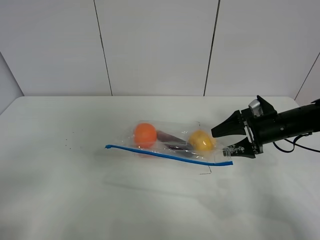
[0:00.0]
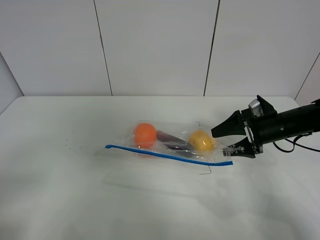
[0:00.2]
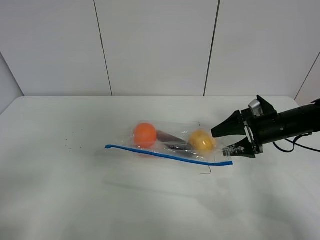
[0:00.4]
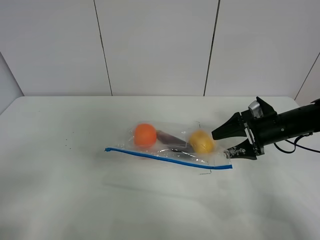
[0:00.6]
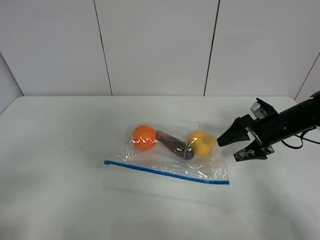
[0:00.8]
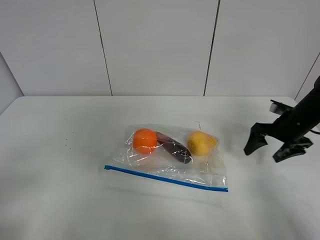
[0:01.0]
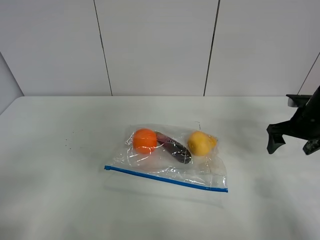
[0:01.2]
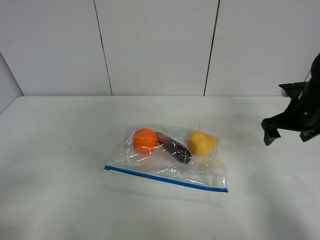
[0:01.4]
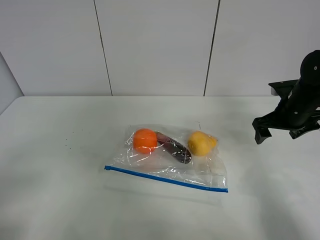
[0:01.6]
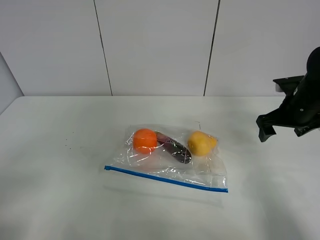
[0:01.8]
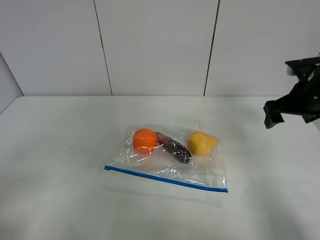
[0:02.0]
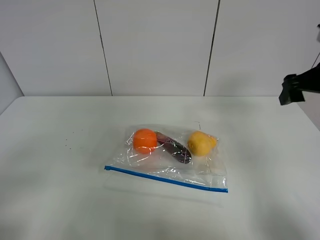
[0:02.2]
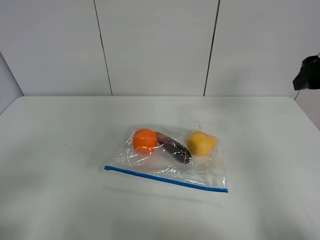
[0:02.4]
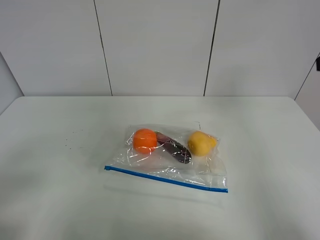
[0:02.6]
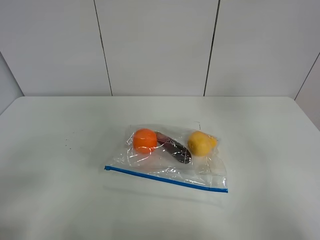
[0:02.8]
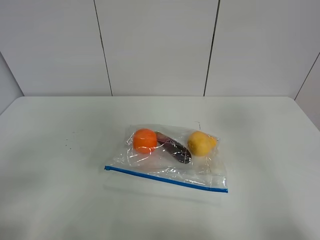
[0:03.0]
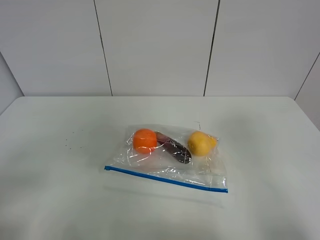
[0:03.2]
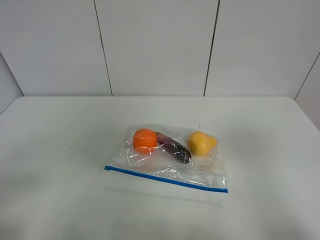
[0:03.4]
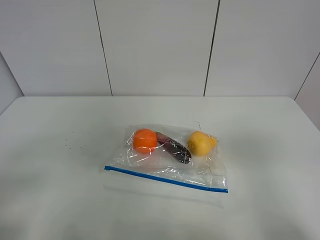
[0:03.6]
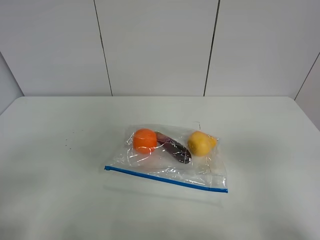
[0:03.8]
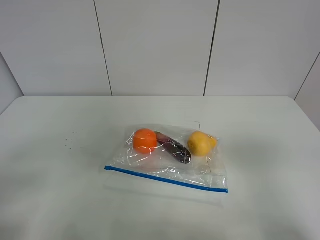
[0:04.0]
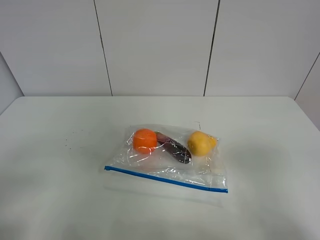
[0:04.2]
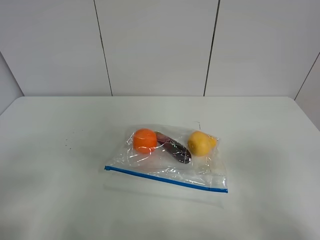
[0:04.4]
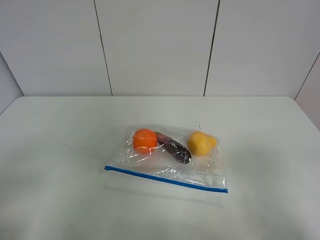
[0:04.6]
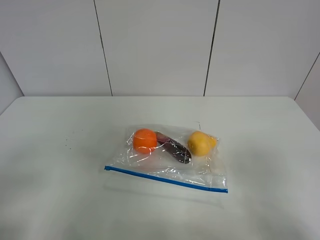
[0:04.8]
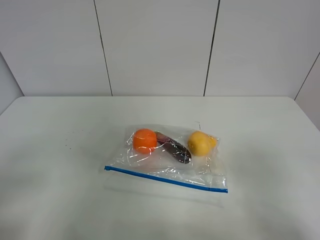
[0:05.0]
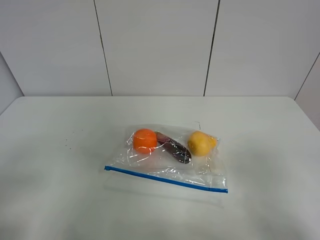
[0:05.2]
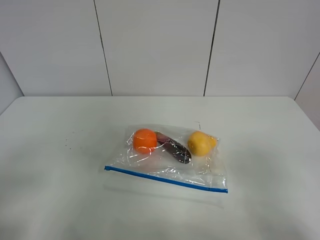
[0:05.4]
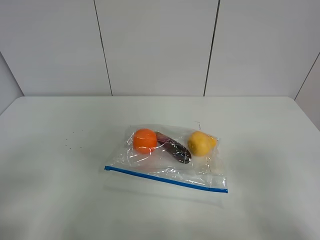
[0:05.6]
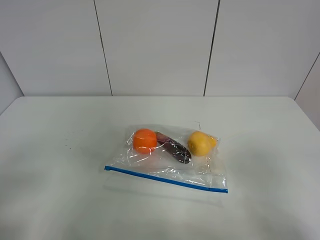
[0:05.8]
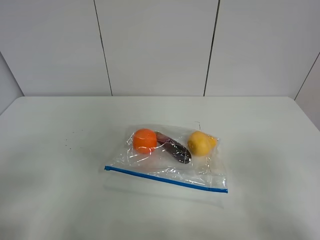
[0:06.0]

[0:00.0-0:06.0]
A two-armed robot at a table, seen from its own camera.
0.0 to 1.6 s: The right gripper ends up roughly 5 cm from where it was.
1.6 to 3.0 s: The right gripper goes roughly 30 cm backward and upward.
3.0 to 4.4 s: The right gripper goes some 10 cm downward and backward.
4.4 to 6.0 s: Both grippers stay about where they are.

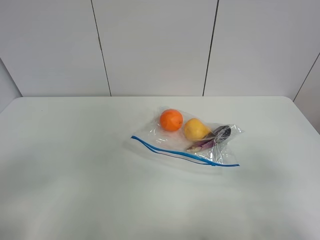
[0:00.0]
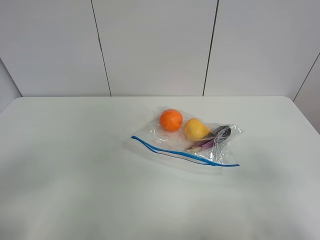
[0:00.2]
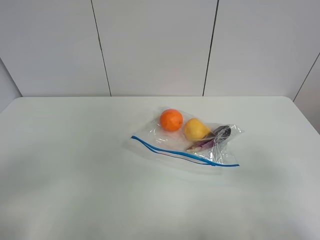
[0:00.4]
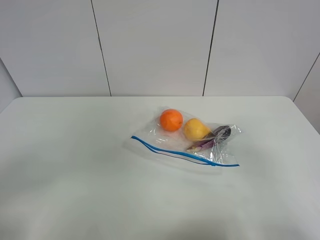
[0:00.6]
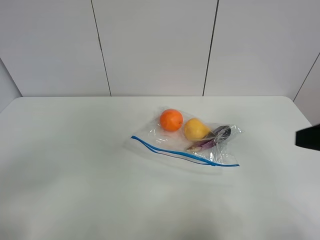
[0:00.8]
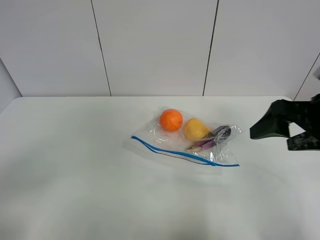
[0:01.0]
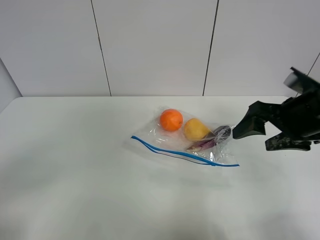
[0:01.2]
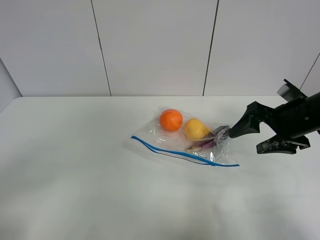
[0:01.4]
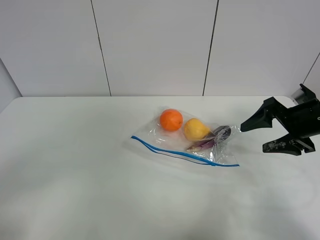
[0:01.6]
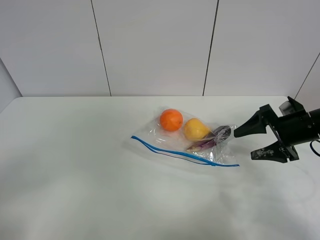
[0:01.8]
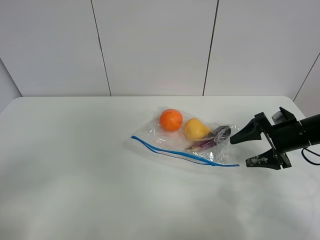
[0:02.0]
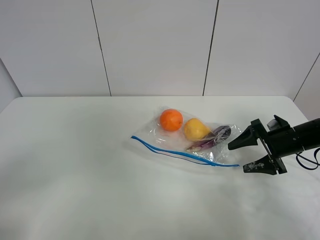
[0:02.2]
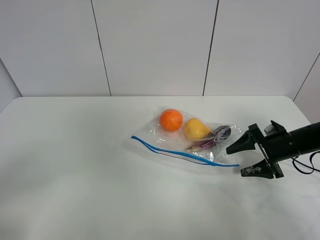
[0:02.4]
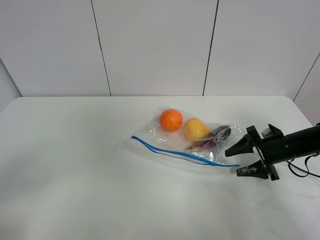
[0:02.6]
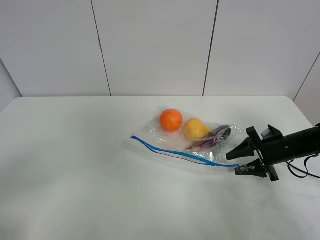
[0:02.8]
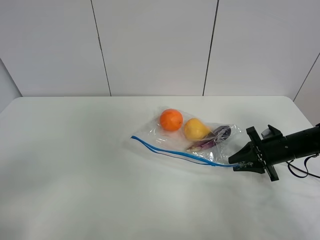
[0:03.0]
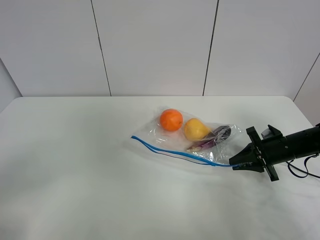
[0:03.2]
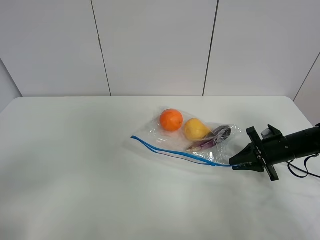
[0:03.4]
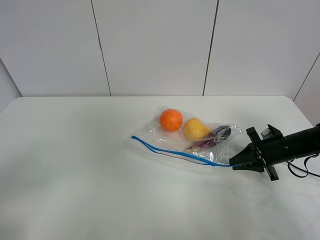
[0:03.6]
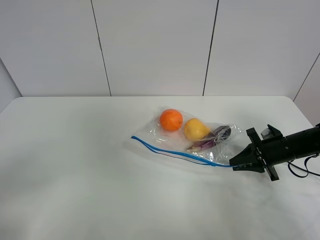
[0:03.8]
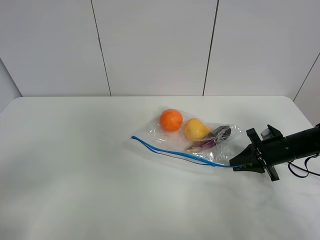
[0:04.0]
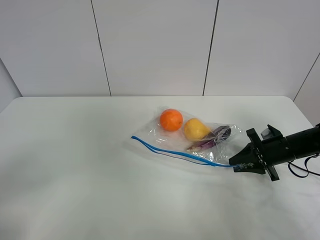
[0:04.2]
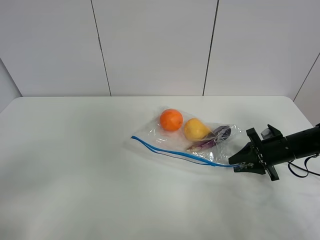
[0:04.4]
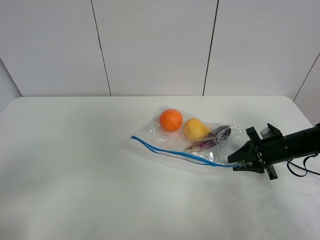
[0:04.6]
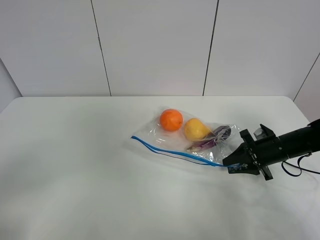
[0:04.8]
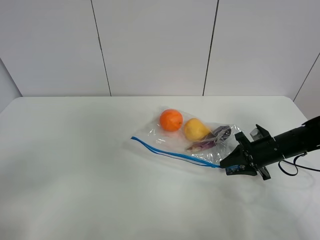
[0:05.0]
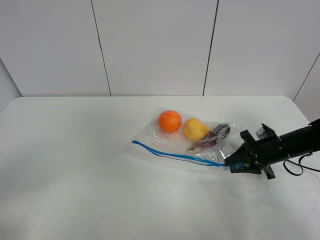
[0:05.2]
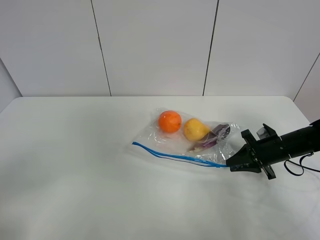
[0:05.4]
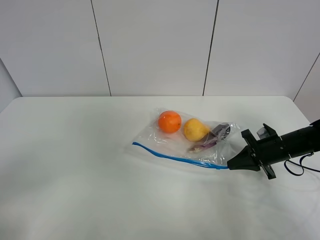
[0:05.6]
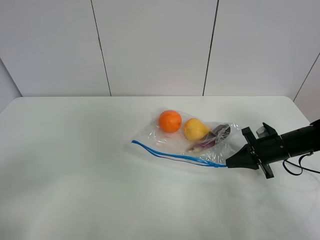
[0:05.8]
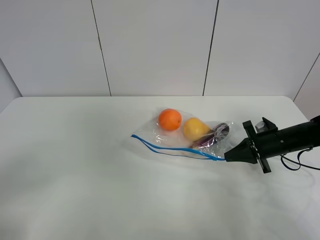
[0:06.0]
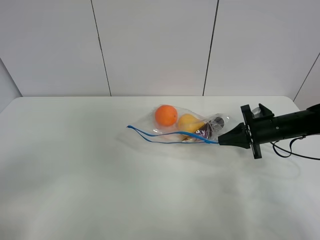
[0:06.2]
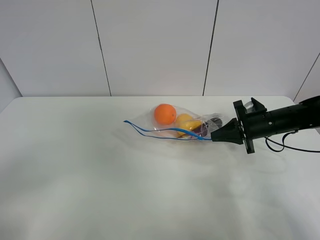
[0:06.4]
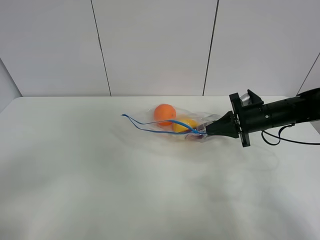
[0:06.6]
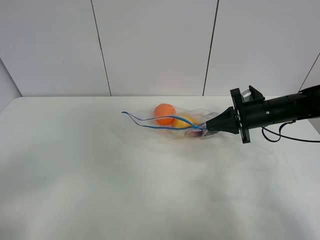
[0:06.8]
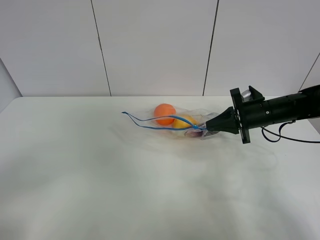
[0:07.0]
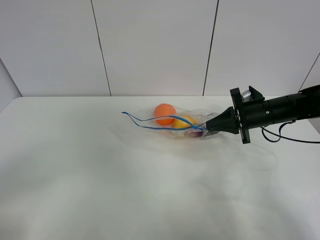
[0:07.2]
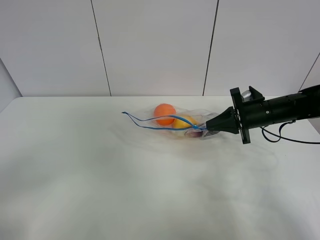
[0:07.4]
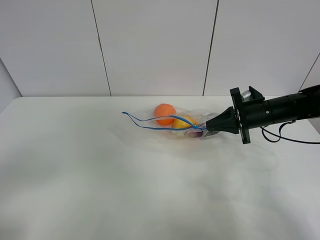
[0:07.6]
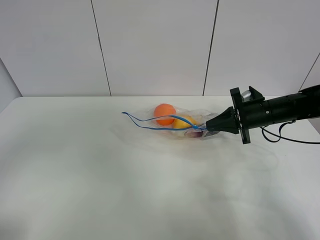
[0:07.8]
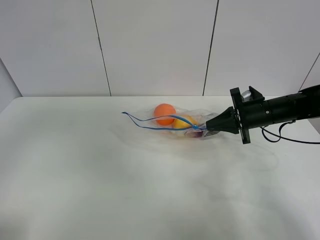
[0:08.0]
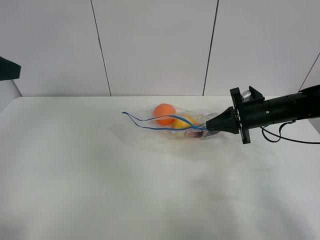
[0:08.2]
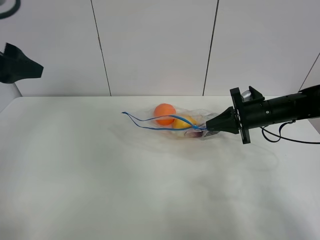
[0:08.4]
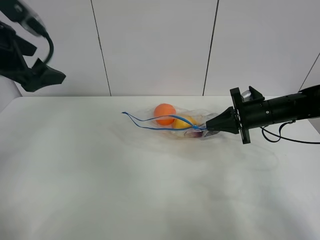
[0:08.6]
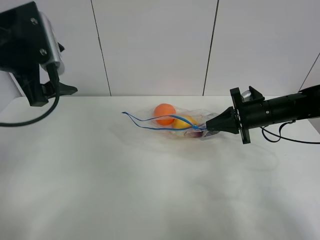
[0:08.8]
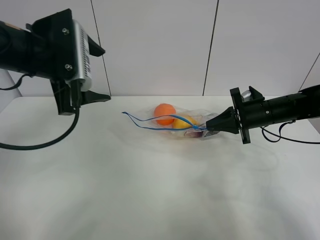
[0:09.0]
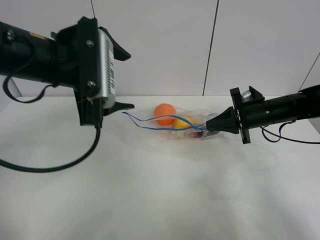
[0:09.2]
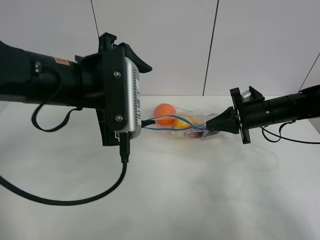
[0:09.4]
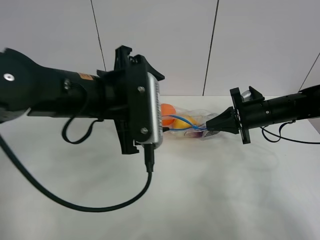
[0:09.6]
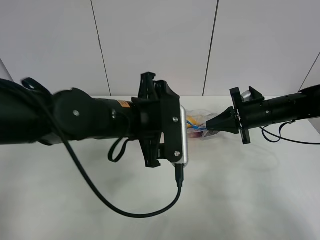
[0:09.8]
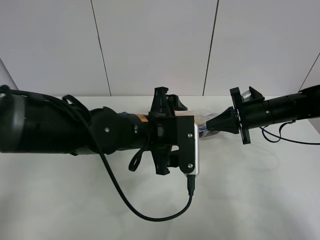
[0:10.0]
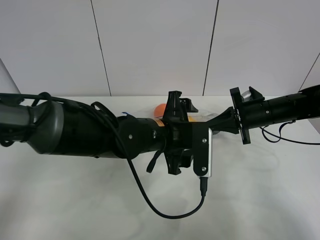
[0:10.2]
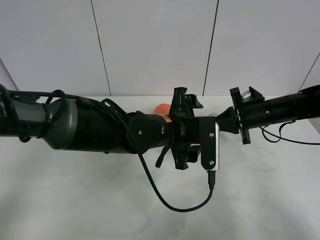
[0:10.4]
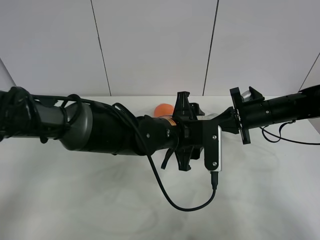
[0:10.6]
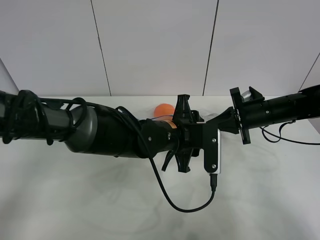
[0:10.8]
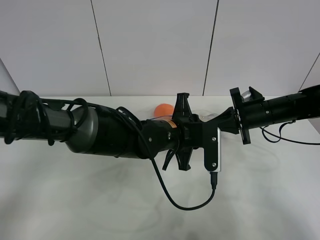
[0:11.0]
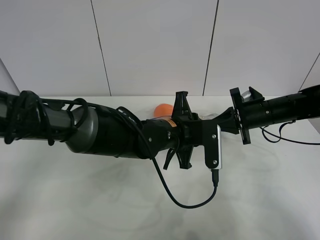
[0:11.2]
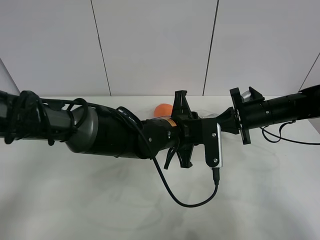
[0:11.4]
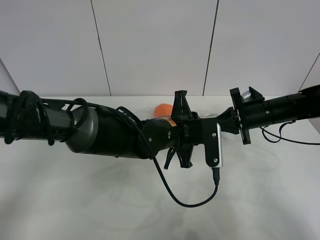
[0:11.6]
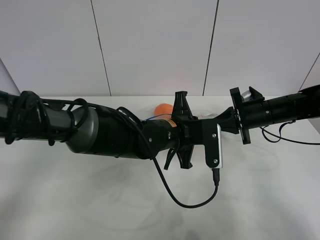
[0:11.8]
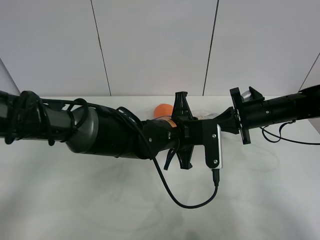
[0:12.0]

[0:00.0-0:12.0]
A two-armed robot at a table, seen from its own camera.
Step, 0.0 to 5.6 s: Grasp the fruit bag with right gripper.
Step, 5.8 to 7.0 s: Lift the fruit bag with your right gripper.
0.0 to 1.6 s: The right gripper is displaced forward by roughly 25 cm.
1.6 to 3.0 s: The right gripper goes about 10 cm downward, and closes.
3.0 to 4.4 s: Neither gripper changes place.
4.4 to 6.0 s: The grippers make only small movements.
6.0 to 7.6 s: The right gripper goes some 5 cm upward.
7.6 to 9.0 s: The left gripper is displaced forward by approximately 30 cm.
9.0 to 10.4 s: The left gripper moves to the right and downward, approximately 25 cm.
10.4 to 12.0 s: The left gripper closes.

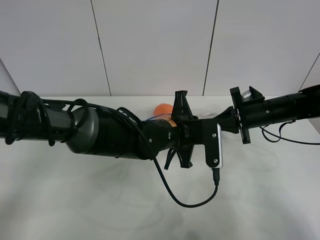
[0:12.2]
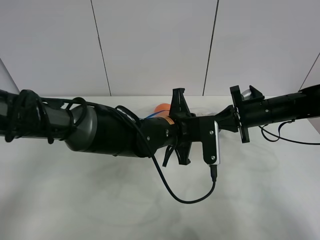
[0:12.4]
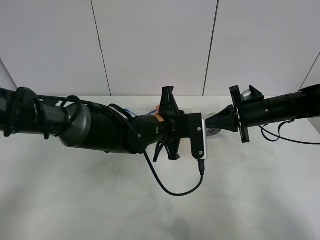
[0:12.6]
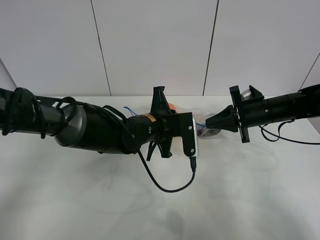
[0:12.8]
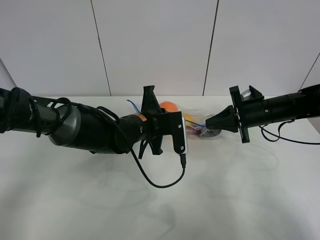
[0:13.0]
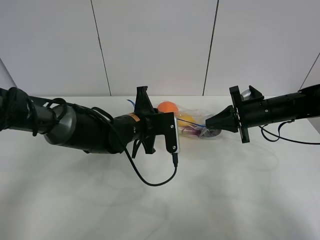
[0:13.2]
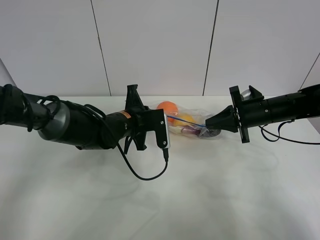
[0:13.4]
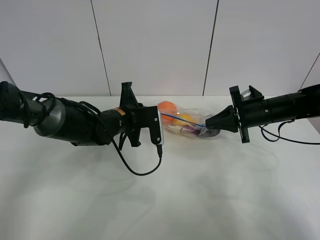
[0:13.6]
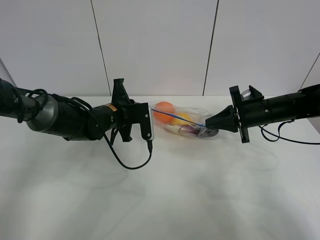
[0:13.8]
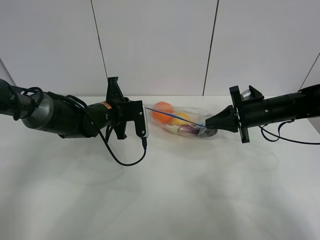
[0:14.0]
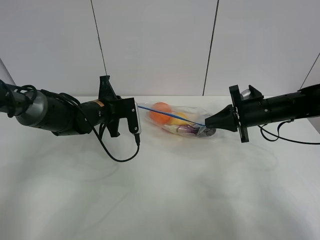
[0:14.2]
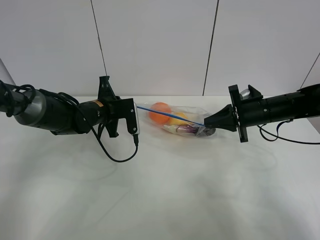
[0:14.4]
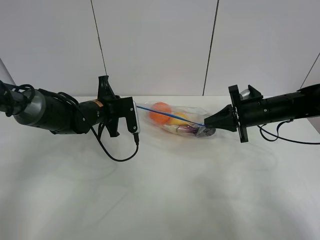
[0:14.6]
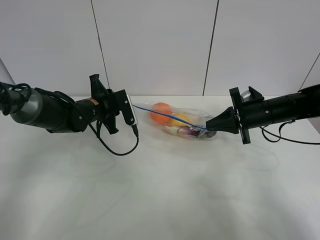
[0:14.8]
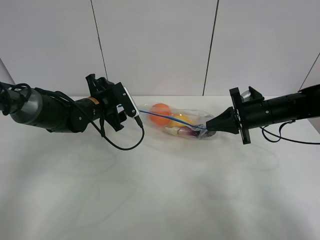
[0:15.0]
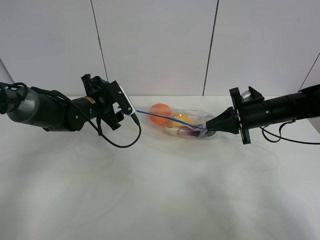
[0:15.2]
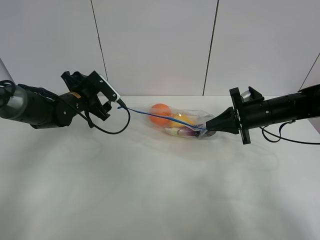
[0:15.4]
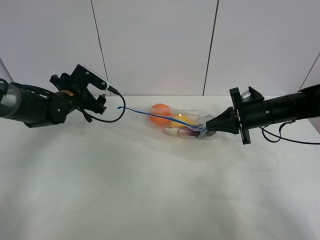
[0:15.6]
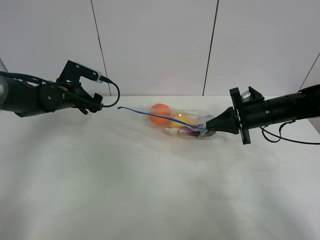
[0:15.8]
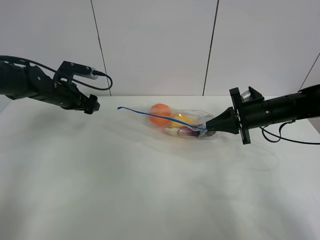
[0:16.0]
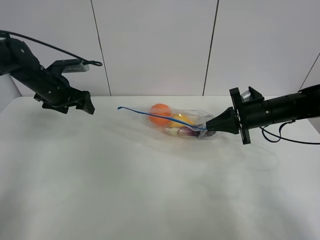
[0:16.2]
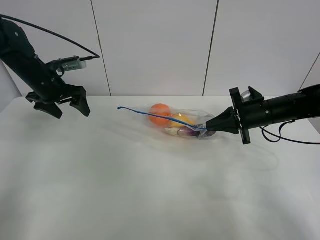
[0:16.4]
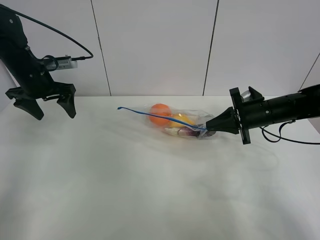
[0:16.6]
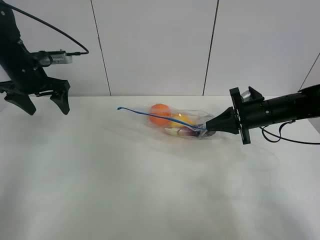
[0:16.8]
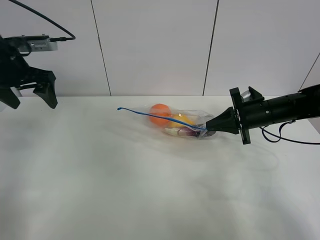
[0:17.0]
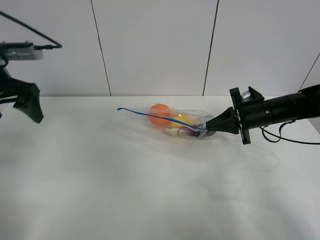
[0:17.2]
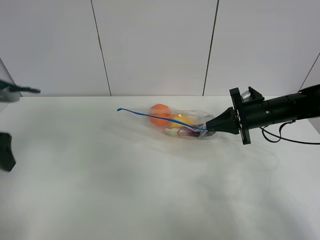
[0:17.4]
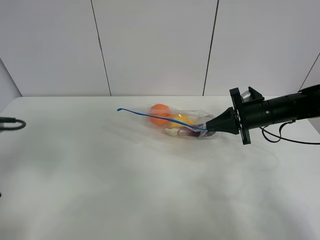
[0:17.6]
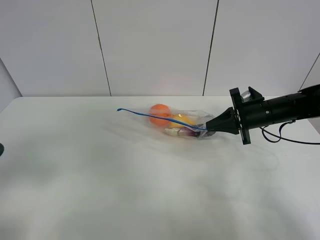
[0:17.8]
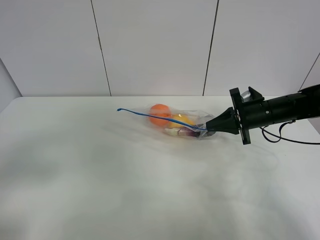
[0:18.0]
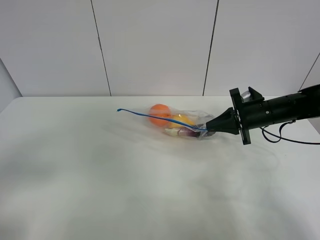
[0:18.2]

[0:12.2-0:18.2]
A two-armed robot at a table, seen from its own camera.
Step, 12.2 to 15.0 s: Pull the fruit bag with left gripper.
12.2 to 13.8 s: The left gripper travels to the left and forward by roughly 15 cm.
13.8 to 15.2 s: The left gripper shifts approximately 5 cm to the left, and opens up.
15.2 to 16.6 s: The left gripper goes about 15 cm to the left and upward.
16.6 to 18.2 s: The left gripper goes approximately 35 cm backward.
